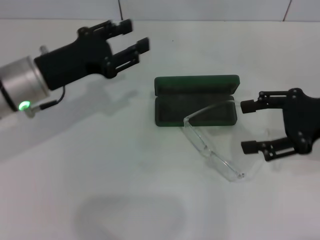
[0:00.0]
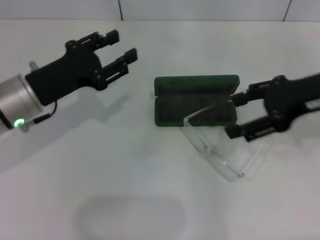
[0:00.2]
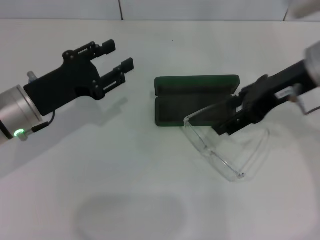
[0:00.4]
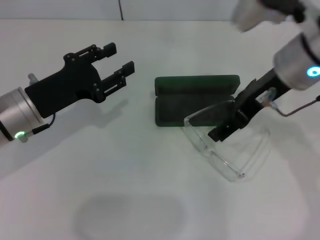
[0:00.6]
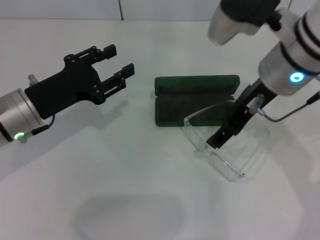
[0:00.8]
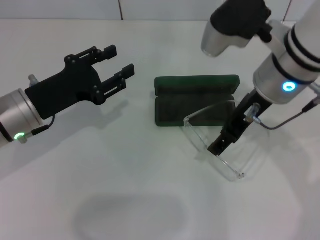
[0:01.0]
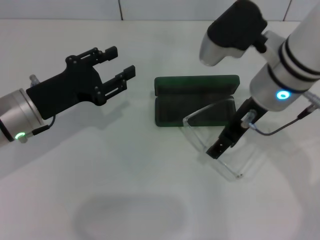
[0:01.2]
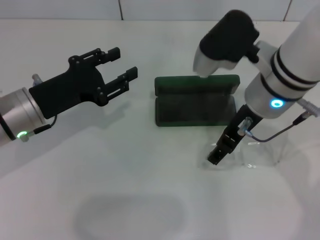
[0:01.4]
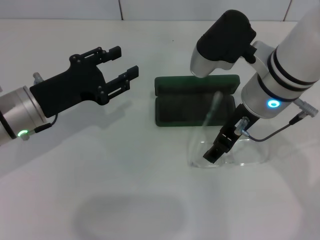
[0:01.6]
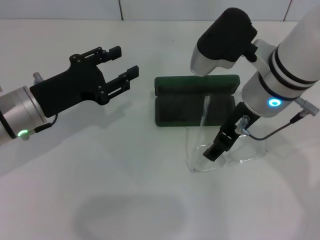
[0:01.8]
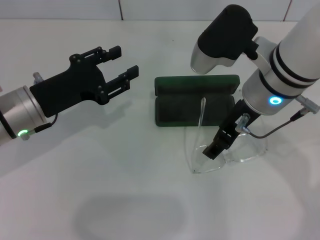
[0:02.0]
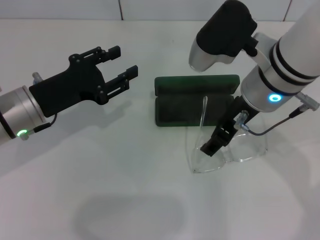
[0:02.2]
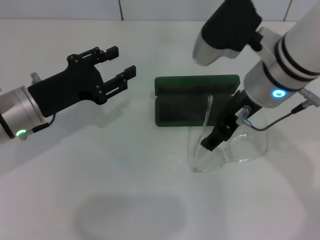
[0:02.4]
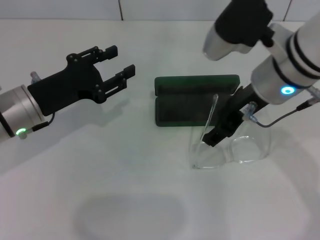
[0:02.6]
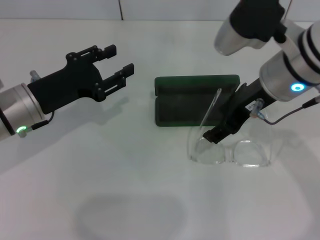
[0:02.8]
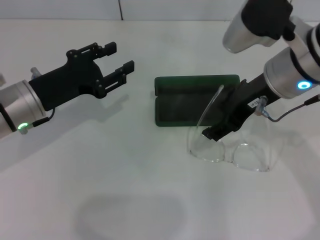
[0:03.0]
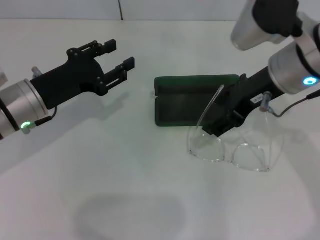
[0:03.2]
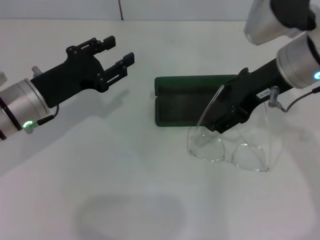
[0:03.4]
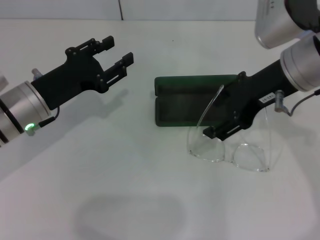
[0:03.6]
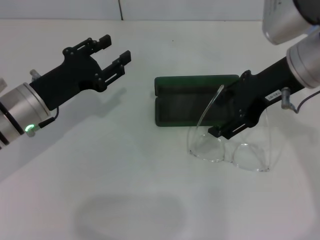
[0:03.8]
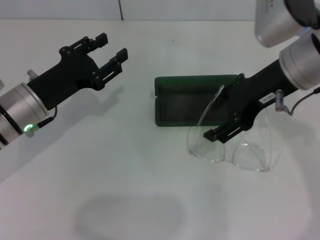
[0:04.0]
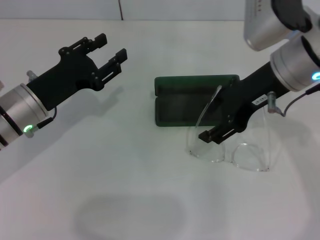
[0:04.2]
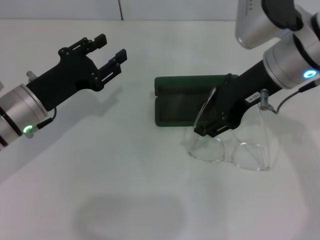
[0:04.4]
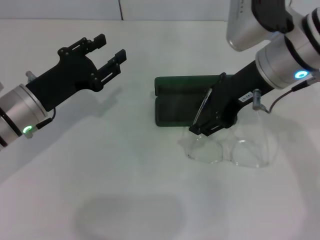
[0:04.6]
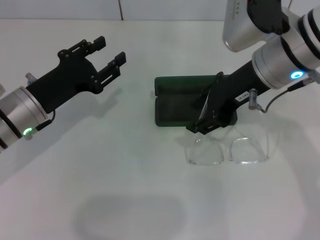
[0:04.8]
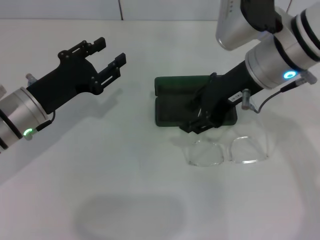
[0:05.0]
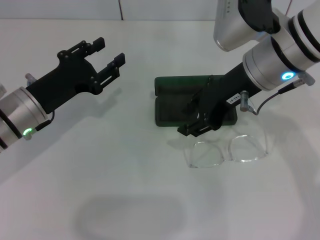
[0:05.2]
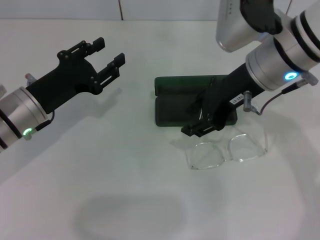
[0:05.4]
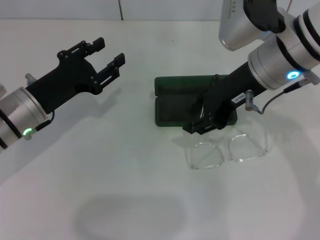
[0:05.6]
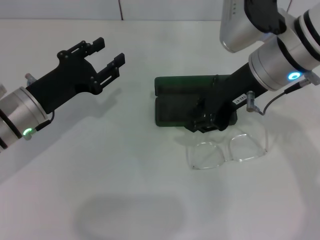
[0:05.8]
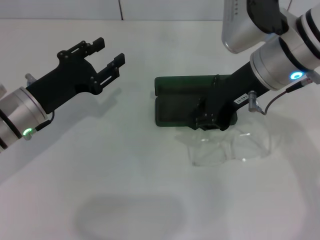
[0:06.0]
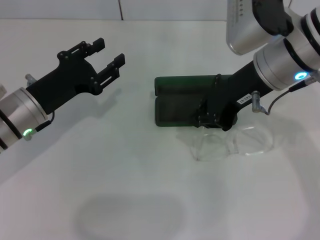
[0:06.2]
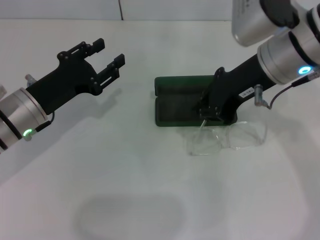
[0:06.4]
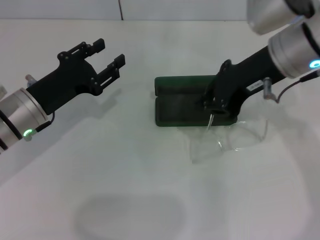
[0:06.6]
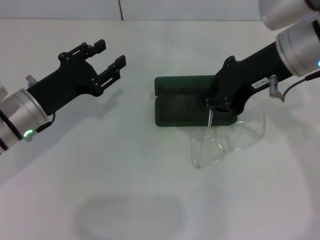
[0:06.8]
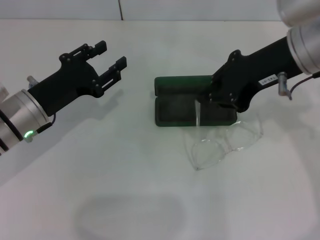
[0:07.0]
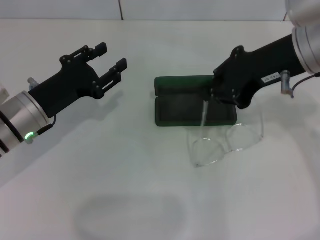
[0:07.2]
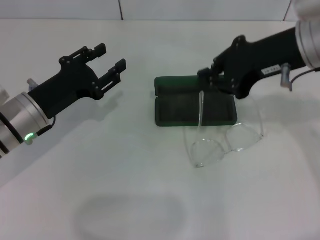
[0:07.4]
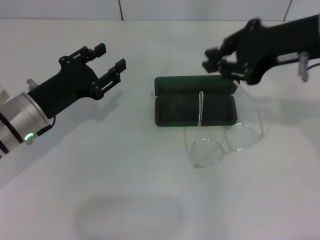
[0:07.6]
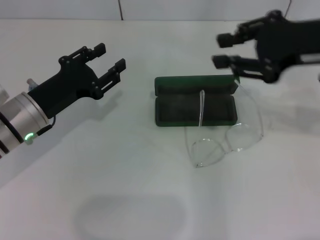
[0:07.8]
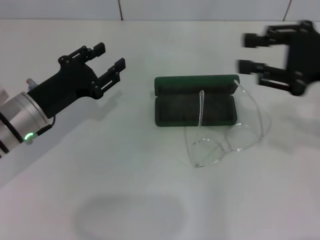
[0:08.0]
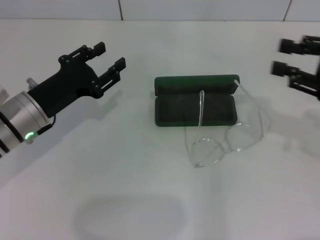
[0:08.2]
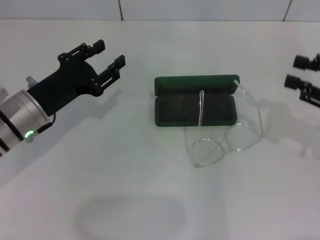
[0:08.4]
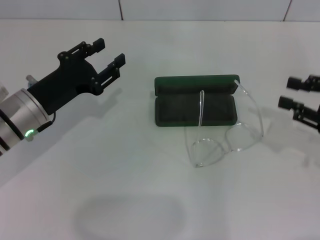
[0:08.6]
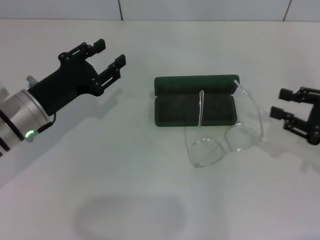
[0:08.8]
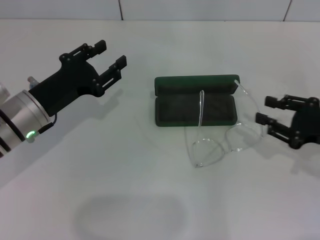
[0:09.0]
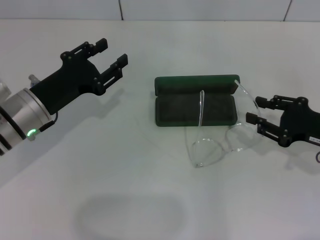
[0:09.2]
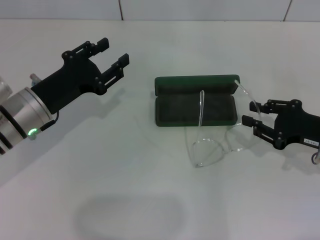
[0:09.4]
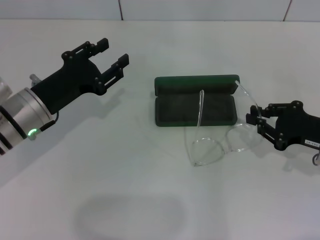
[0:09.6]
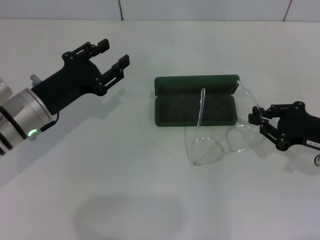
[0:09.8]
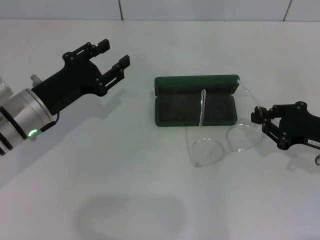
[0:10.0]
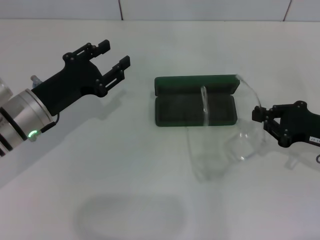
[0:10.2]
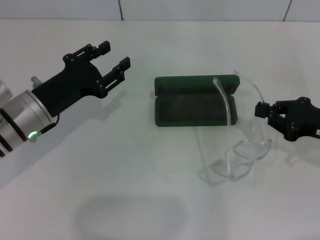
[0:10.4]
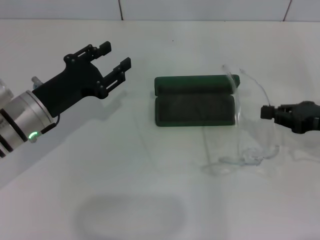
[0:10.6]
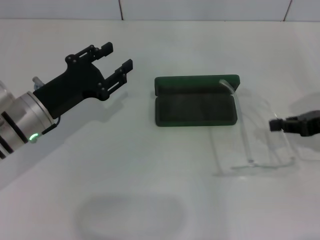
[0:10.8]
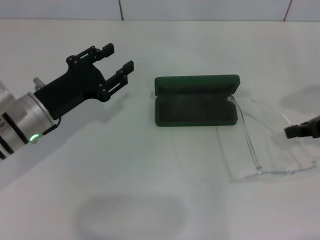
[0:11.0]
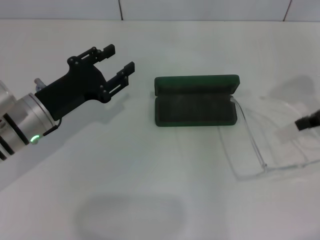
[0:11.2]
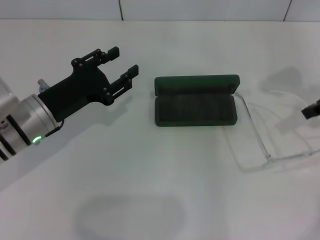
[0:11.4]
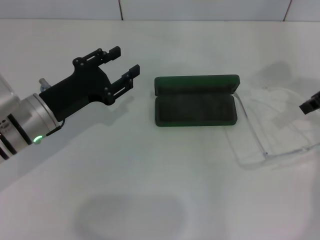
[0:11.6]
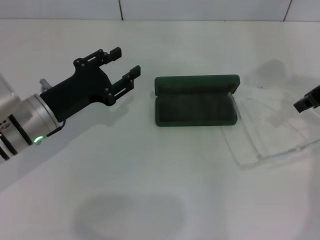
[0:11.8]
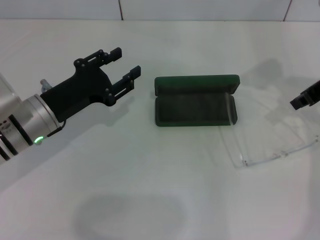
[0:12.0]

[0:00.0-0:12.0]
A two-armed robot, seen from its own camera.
0:00.0 to 0:01.6: The right gripper travels to the left by about 15 cm.
0:01.6 to 0:03.0: The grippers make only small movements.
0:03.0 to 0:04.4: The grippers stay close to where they were, moving slightly.
0:04.4 to 0:06.0: The right gripper closes its fingers.
0:06.0 to 0:07.6: The right gripper moves to the right, about 5 cm.
0:07.6 to 0:09.0: The right gripper is displaced downward and to the right by some 20 cm.
0:09.0 to 0:10.4: The right gripper closes up.
0:10.4 to 0:12.0: The right gripper is displaced upward and forward by about 15 cm.

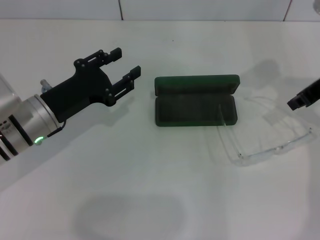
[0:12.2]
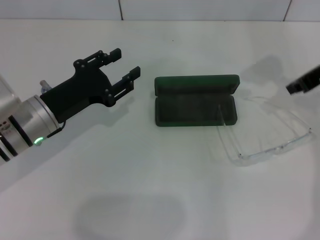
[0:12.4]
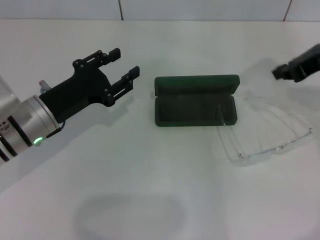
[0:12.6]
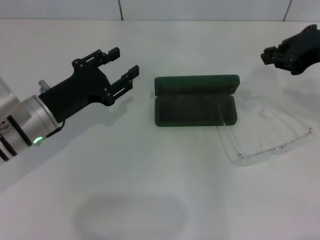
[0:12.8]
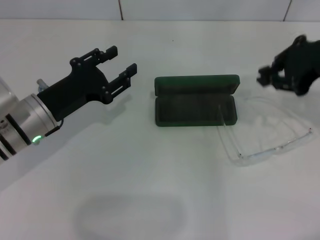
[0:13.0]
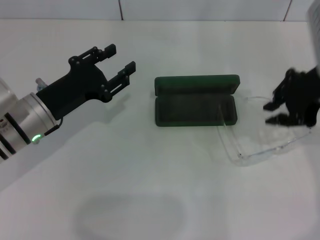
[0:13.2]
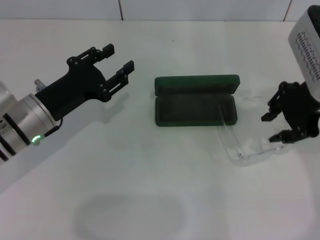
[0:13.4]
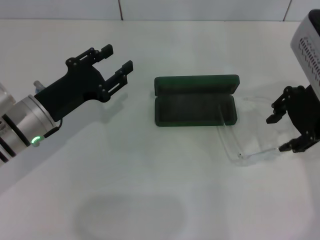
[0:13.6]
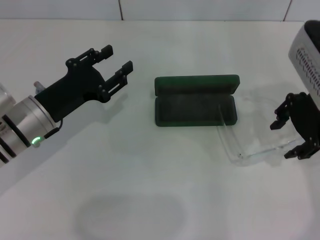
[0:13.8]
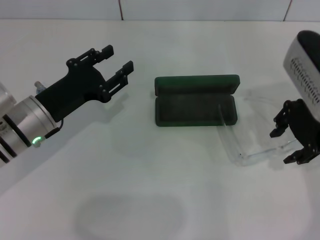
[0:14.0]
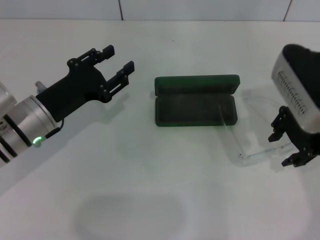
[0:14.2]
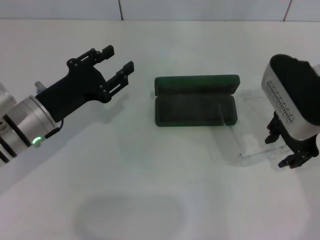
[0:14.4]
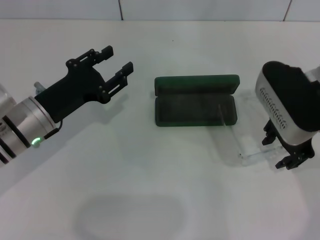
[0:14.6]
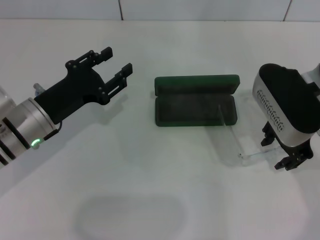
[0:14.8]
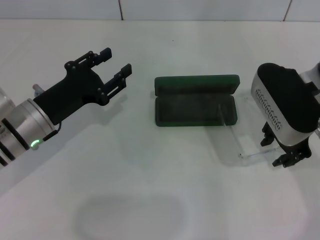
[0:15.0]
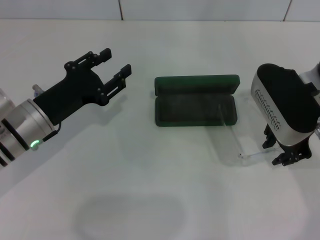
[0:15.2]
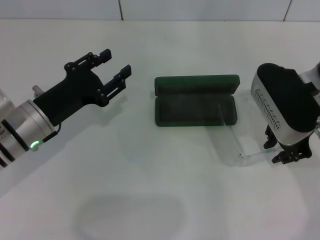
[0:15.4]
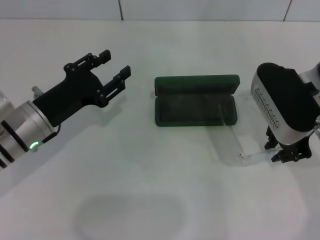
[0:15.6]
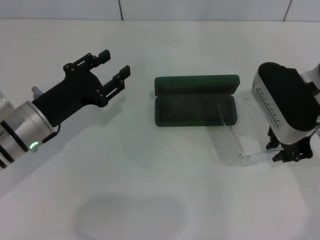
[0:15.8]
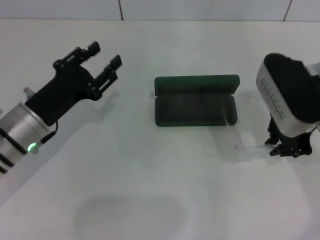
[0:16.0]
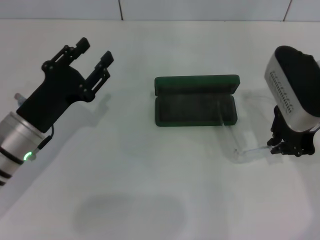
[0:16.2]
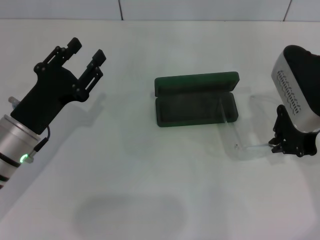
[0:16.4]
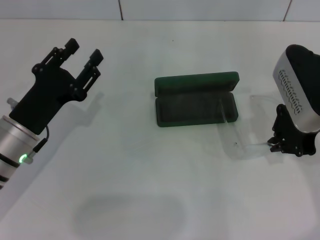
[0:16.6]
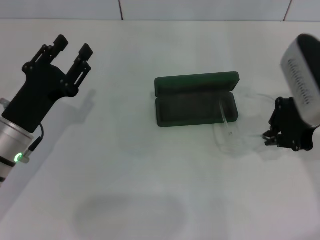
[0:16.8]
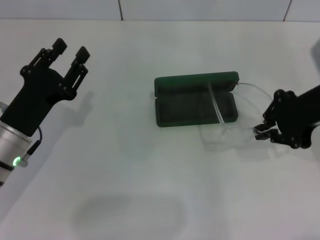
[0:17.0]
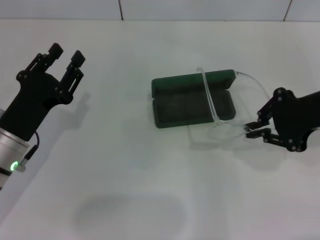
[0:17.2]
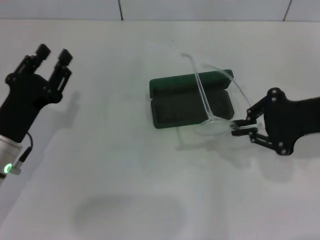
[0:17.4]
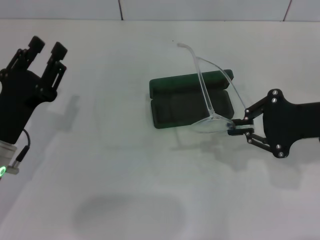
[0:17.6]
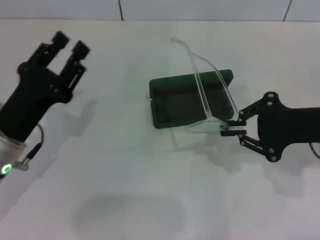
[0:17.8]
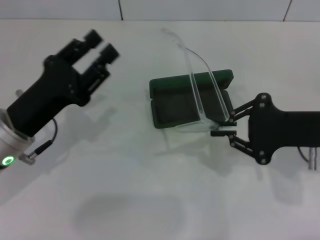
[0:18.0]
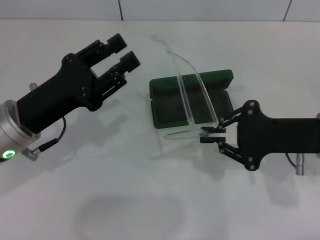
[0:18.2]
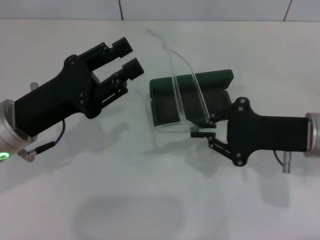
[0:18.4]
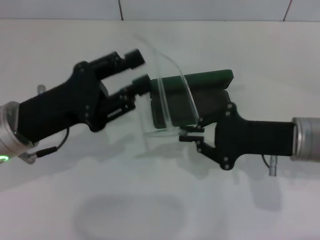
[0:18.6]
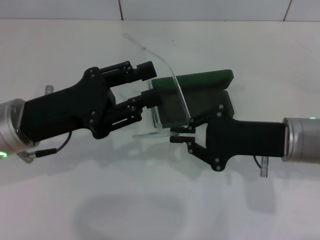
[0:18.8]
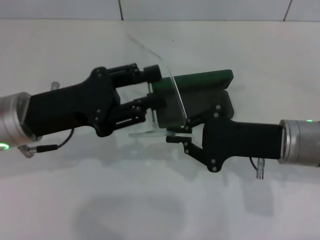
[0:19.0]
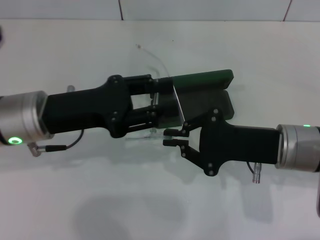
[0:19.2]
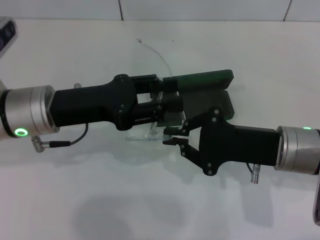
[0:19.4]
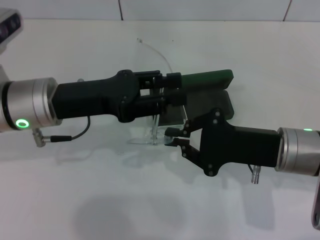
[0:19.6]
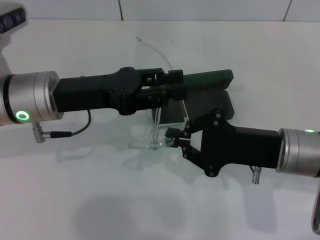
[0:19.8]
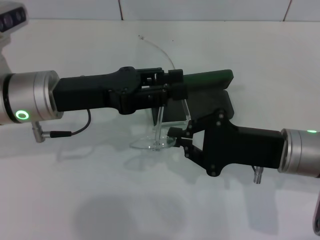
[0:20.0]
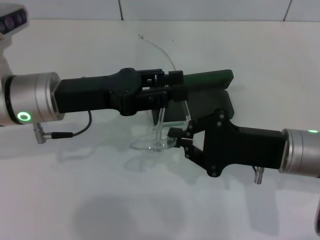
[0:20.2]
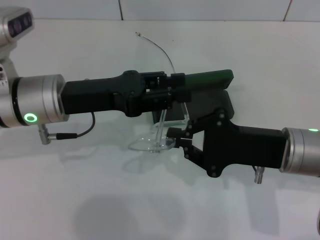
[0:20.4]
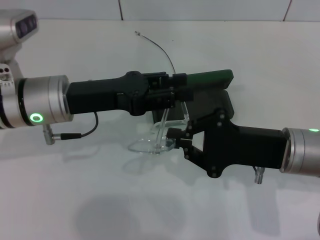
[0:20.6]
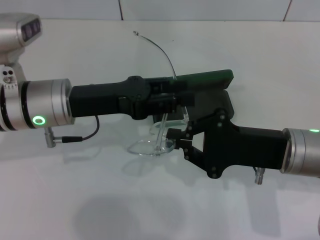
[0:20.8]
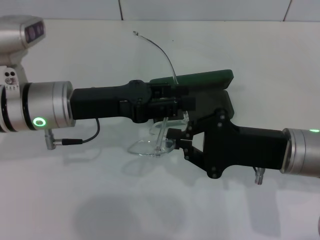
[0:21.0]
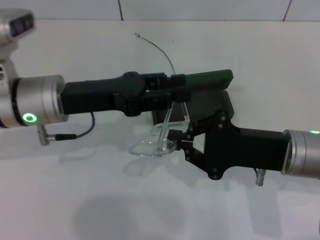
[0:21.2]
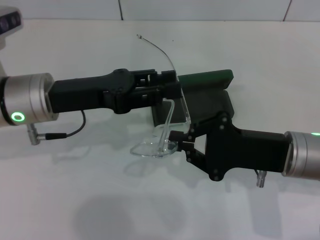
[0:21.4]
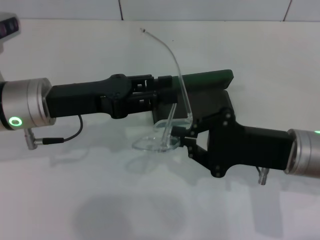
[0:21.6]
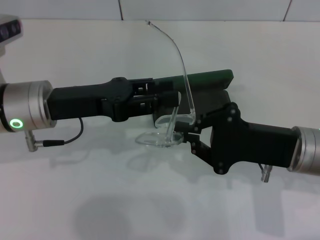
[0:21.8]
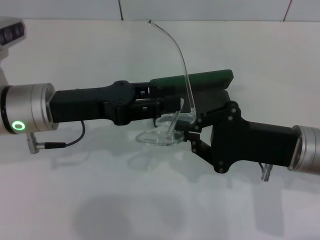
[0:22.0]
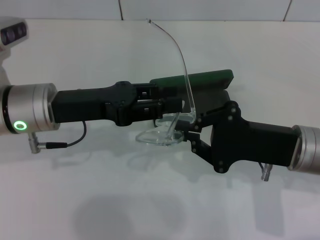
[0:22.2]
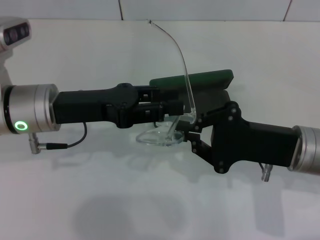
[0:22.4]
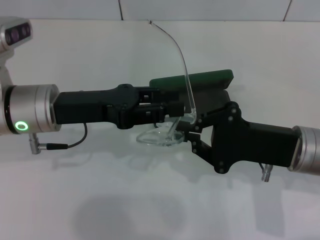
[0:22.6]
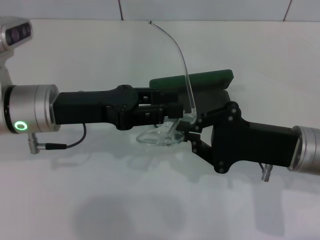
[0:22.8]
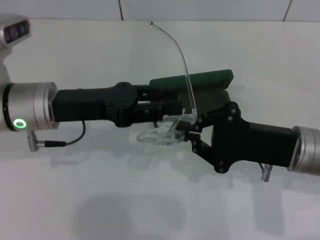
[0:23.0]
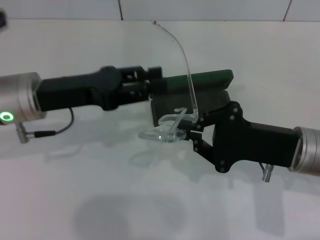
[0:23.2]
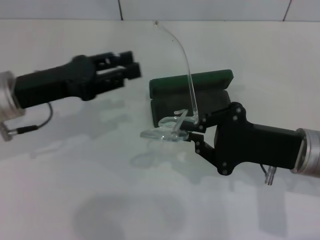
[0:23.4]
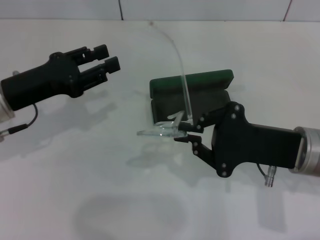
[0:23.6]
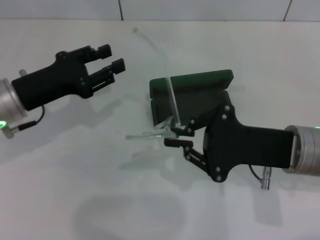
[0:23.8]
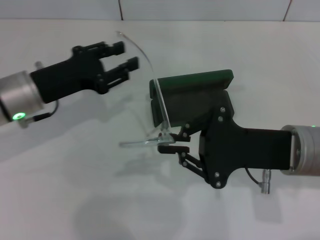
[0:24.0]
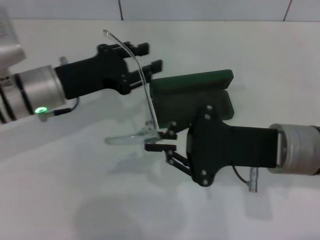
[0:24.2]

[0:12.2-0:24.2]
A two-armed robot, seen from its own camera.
Step, 0:12.2 to 0:16.0: Grab the eyeglass frame with your right hand.
0:12.2 to 0:13.8: The right gripper changes place by about 5 cm, and opens up.
0:13.8 to 0:15.2: The right gripper ends up some 5 cm from where it was.
0:15.2 to 0:16.6: The right gripper closes.
0:16.6 to 0:18.2: The right gripper goes about 10 cm downward and backward. The left gripper moves roughly 5 cm.
0:18.2 to 0:19.8: The left gripper moves some 5 cm. The right gripper changes place by roughly 5 cm.
0:19.8 to 0:22.6: The grippers stay close to where they were, moving slightly.
